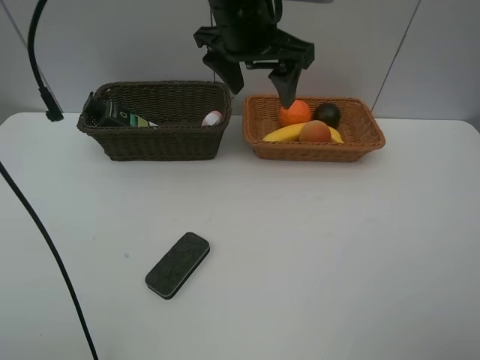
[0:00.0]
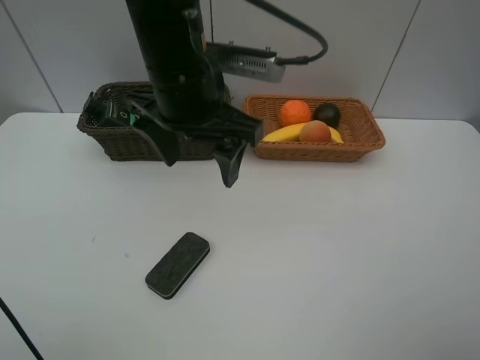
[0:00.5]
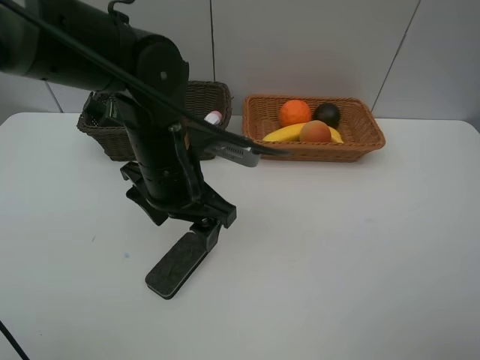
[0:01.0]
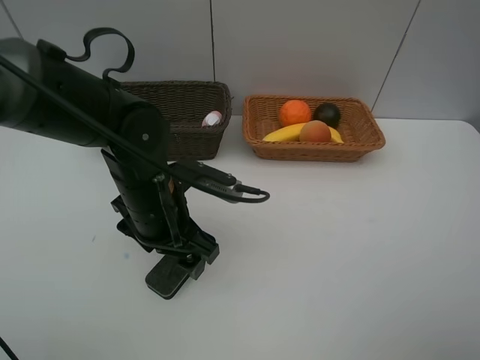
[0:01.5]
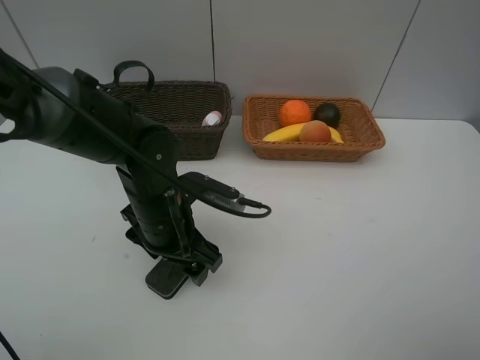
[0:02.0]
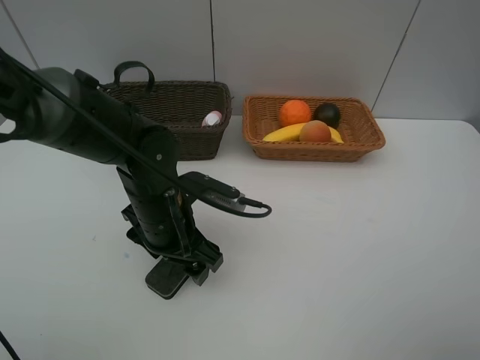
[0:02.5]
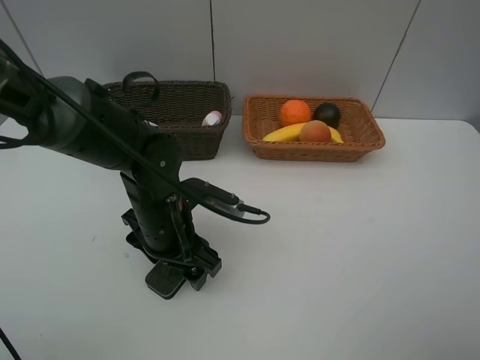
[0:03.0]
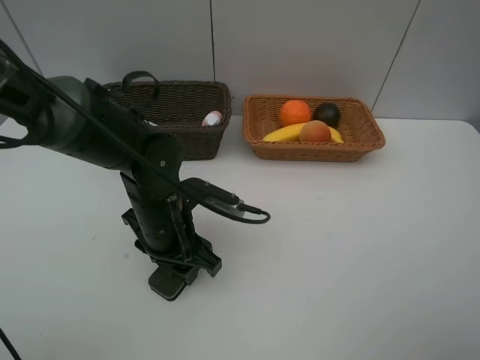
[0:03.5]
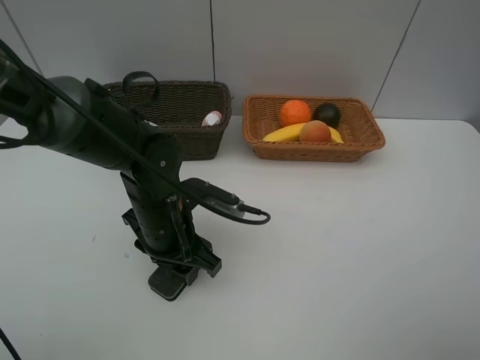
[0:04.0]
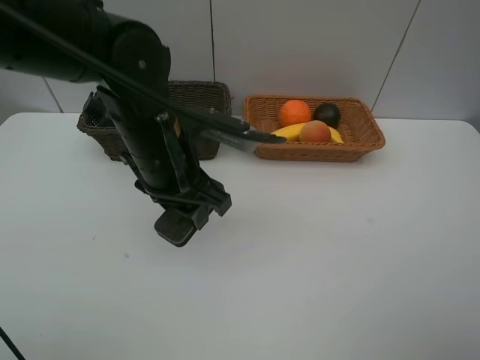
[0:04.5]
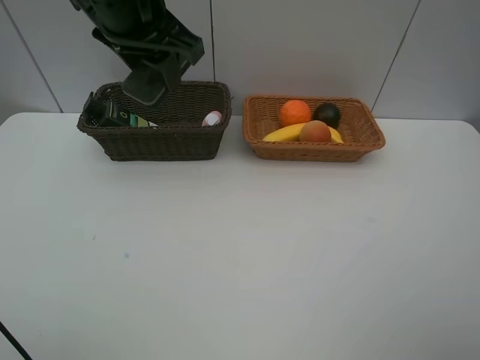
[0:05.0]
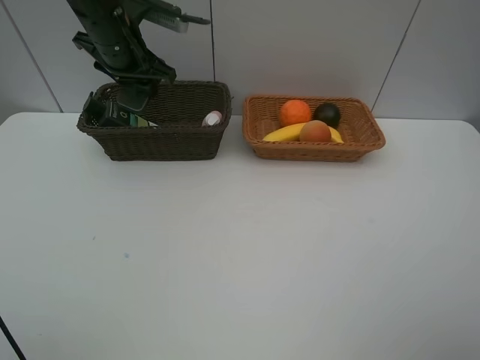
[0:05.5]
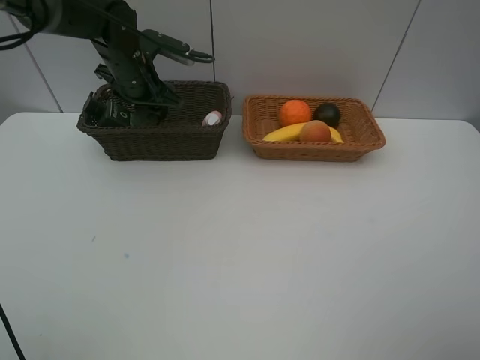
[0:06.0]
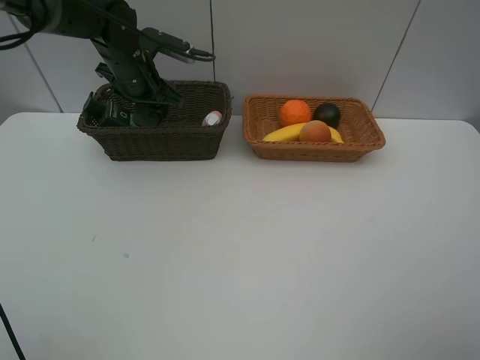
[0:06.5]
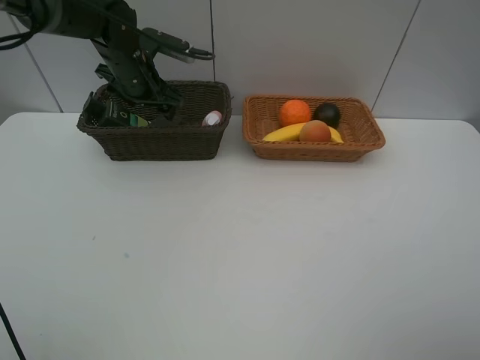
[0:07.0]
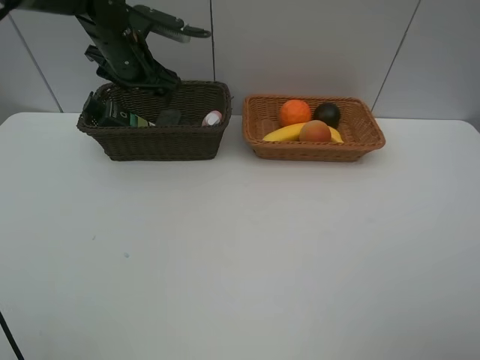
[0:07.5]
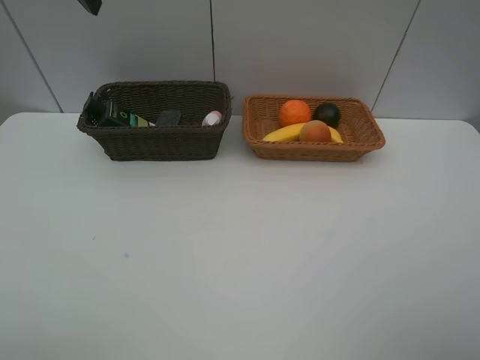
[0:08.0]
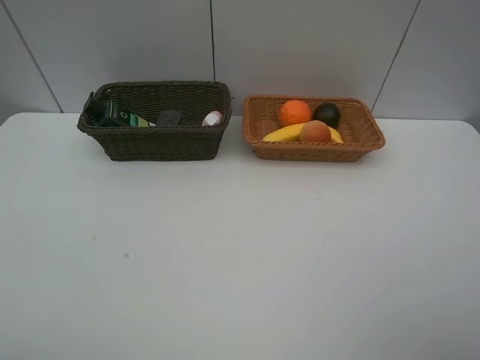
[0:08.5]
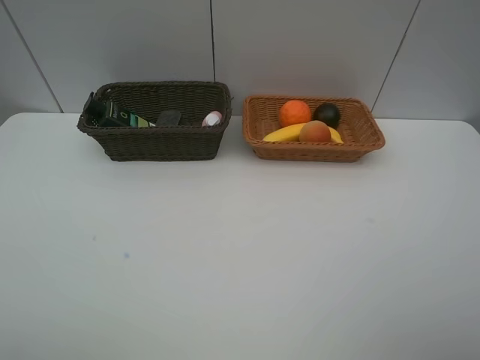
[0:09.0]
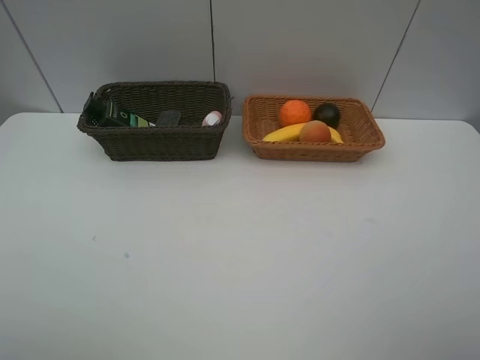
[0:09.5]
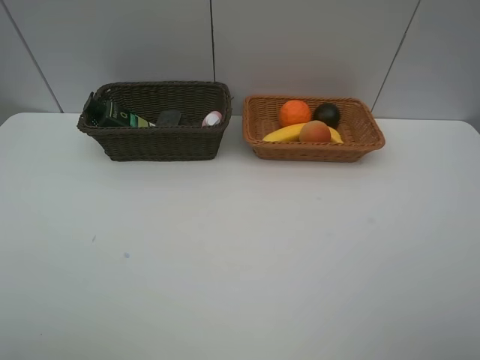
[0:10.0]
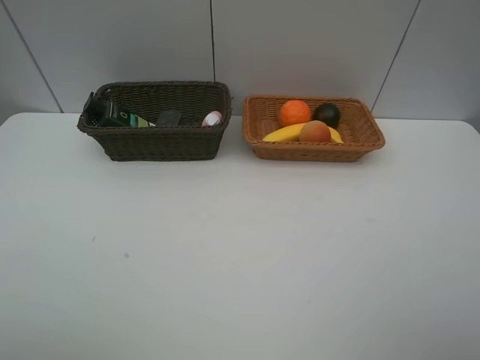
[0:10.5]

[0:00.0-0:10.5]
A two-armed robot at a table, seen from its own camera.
Task of the whole recording: Place multiple objects separately in different baskets.
Step, 0:00.0 to 0:04.0: Pick up blackboard eraser with left gripper.
Step, 0:04.5 to 0:07.5: Place the blackboard eraser in the dark basket with left gripper.
0:00.0 to 0:02.0: The left gripper shifts about 25 cm downward, backward and to the left.
0:02.0 to 0:04.0: The left gripper closes.
0:04.0 to 0:06.5: The left gripper moves forward and upward, some 25 cm.
0:06.5 to 0:08.5: The left gripper goes about 40 cm backward, upward and to the left, and opens up.
